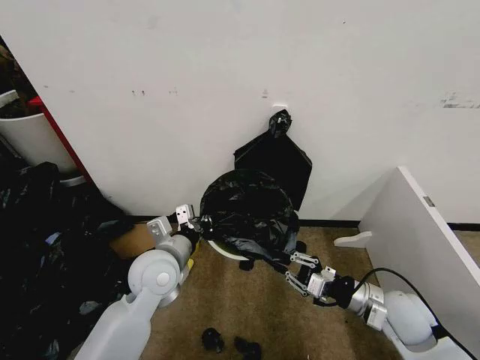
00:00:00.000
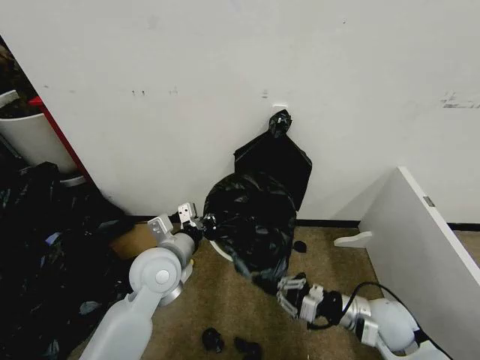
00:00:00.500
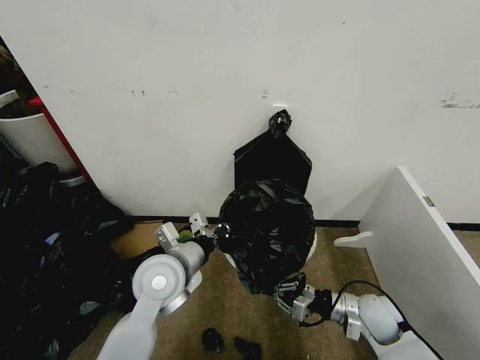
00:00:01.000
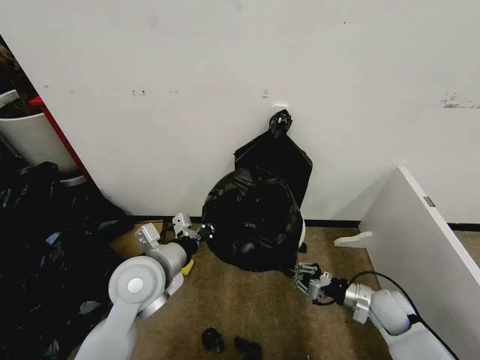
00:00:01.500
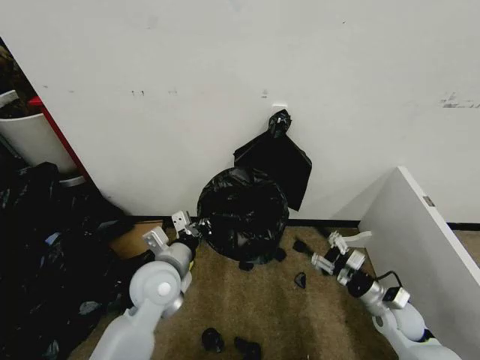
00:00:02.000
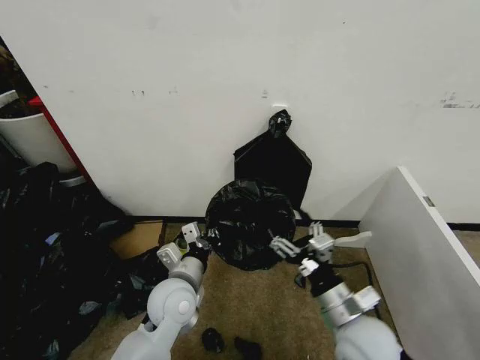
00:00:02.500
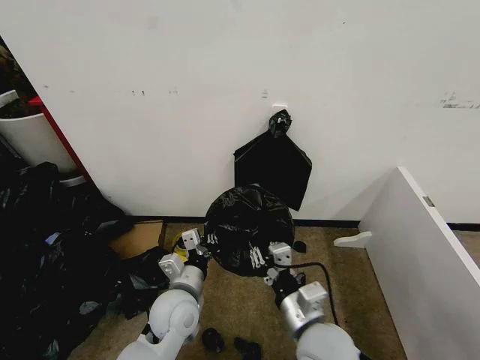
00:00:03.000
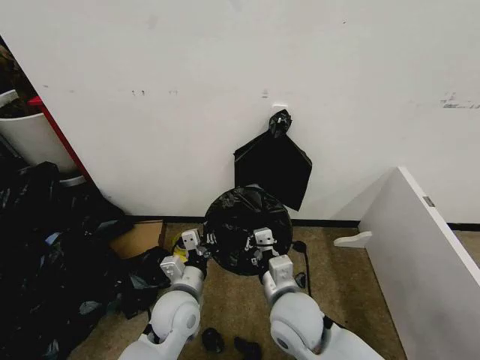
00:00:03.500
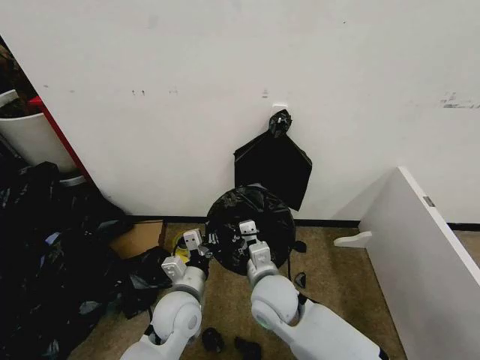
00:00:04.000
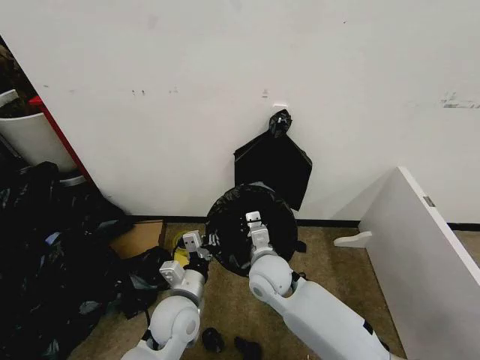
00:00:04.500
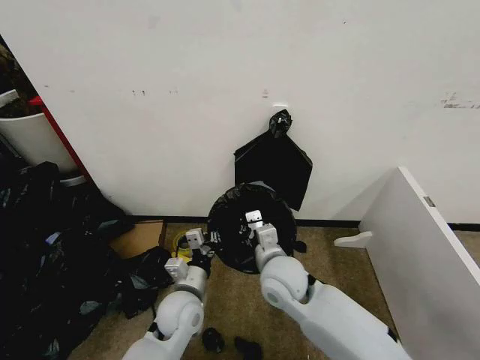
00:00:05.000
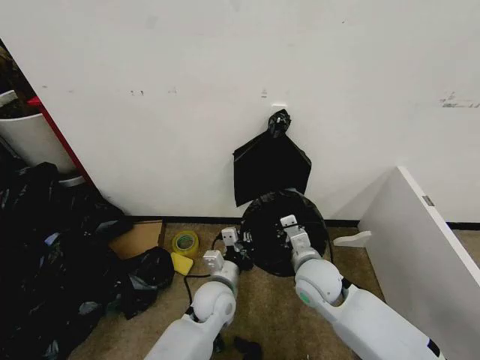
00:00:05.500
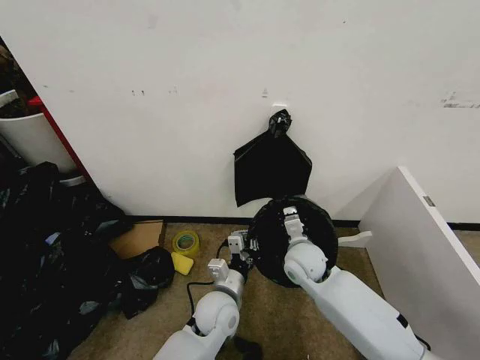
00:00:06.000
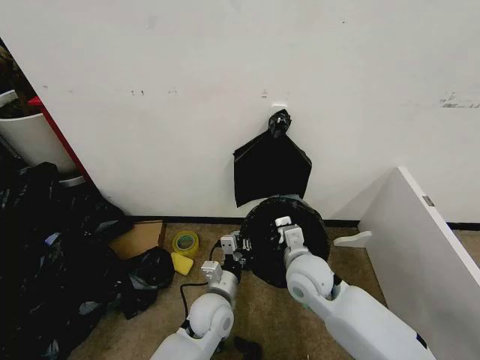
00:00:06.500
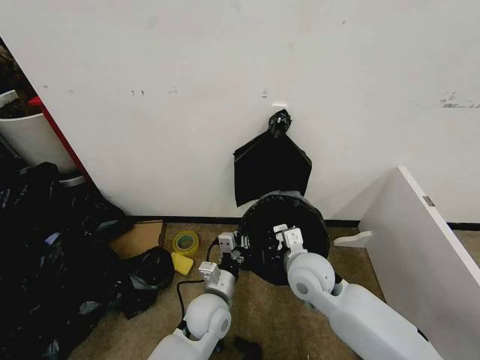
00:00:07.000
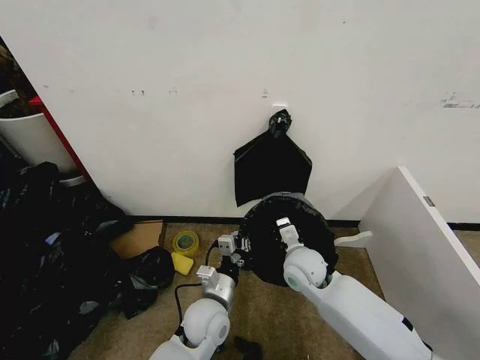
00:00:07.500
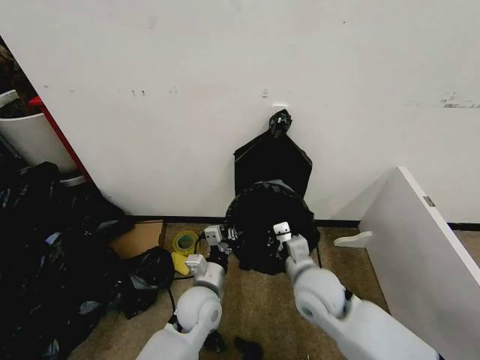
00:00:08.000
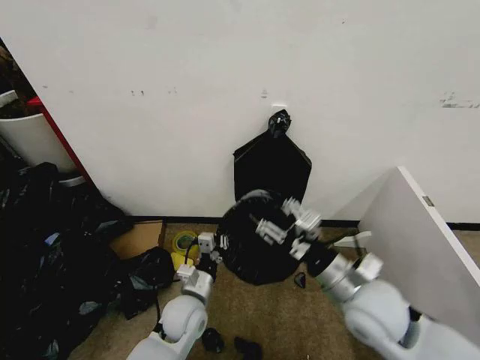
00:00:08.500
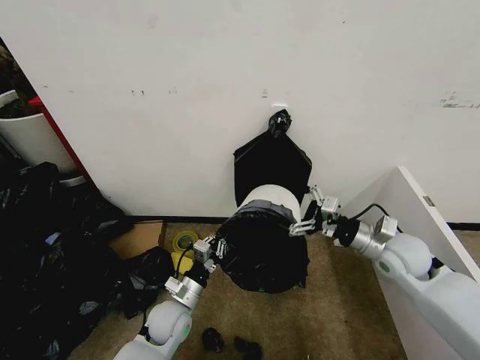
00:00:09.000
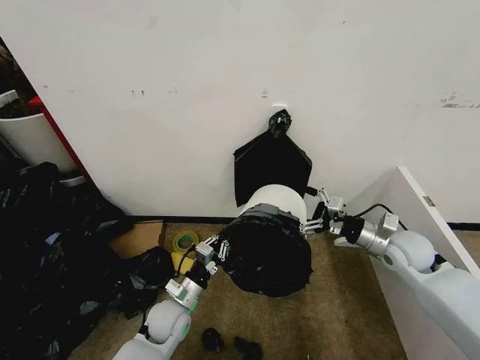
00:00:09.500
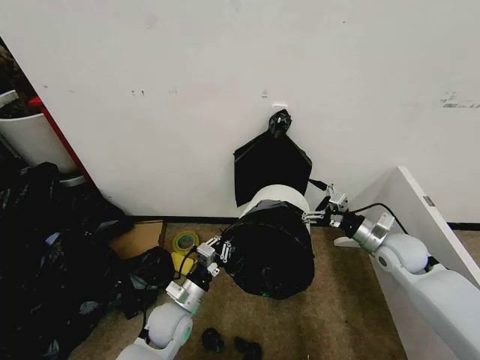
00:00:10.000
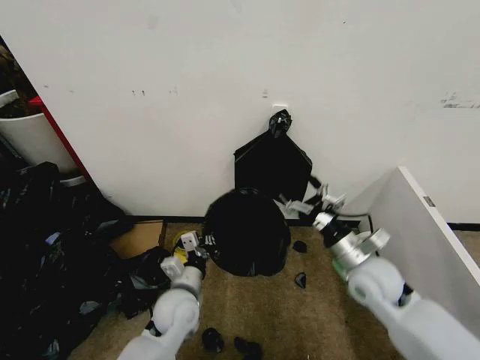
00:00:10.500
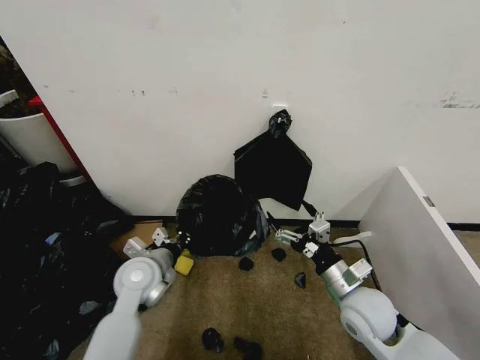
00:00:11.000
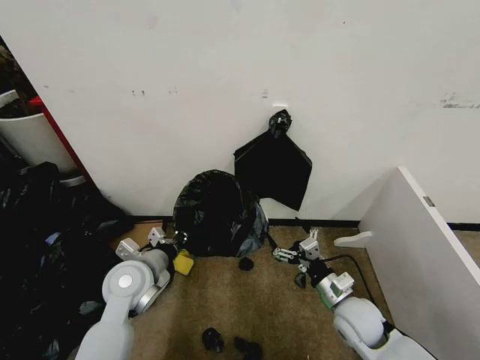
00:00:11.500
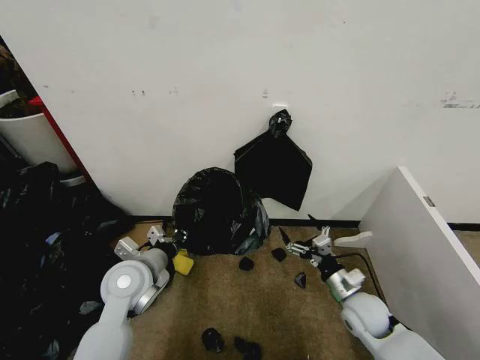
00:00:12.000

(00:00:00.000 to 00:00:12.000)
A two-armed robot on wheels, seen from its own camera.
Task of the whole recording: Place the garbage bag over the trash bin.
00:00:00.000 - 00:00:02.000: The right gripper travels downward by about 10 cm, and opens up.
00:00:02.000 - 00:00:04.000: The left gripper moves downward, approximately 5 cm, while the right gripper goes roughly 30 cm to the left, and closes.
00:00:04.000 - 00:00:06.000: The left gripper goes about 10 cm to the right; the right gripper moves forward and to the right, approximately 15 cm.
00:00:06.000 - 00:00:08.000: The right gripper is displaced backward by some 10 cm.
00:00:08.000 - 00:00:10.000: The left gripper is displaced to the left and downward by about 10 cm. Meanwhile the right gripper travels to the right and forward by about 25 cm, and opens up.
00:00:10.000 - 00:00:12.000: The left gripper goes about 15 cm upward and to the left; the right gripper heads downward, backward and to the left, covering roughly 15 cm.

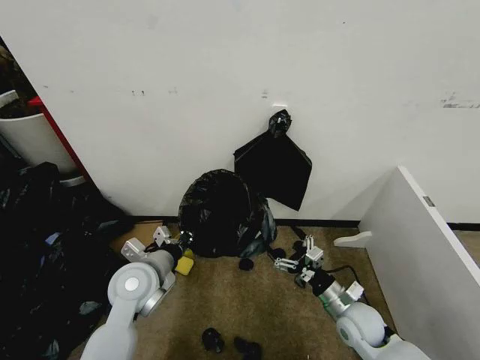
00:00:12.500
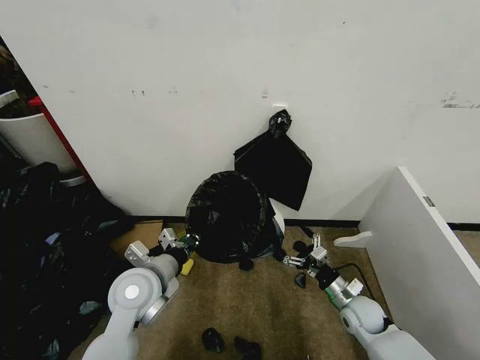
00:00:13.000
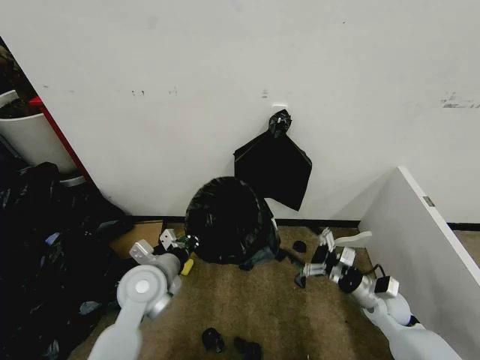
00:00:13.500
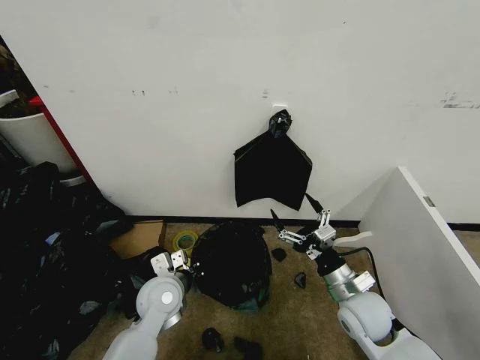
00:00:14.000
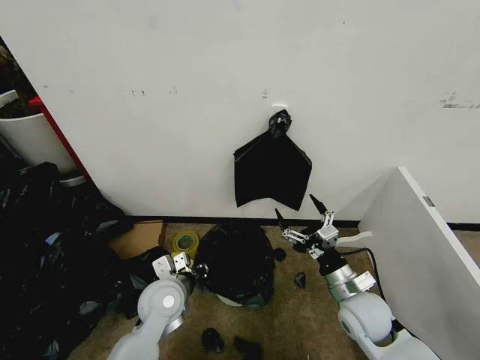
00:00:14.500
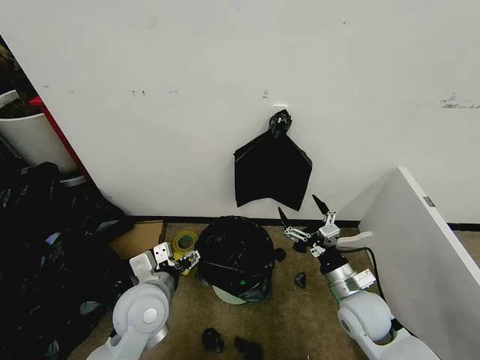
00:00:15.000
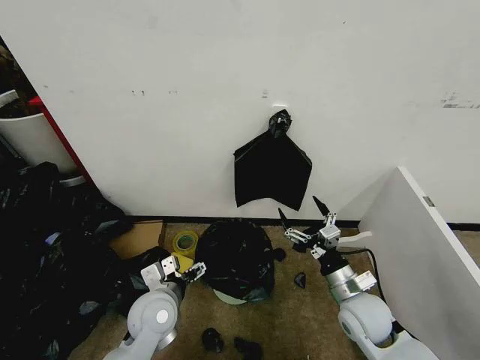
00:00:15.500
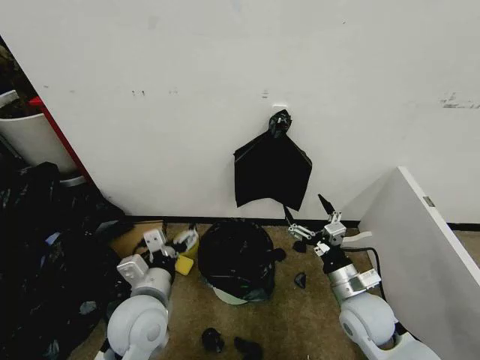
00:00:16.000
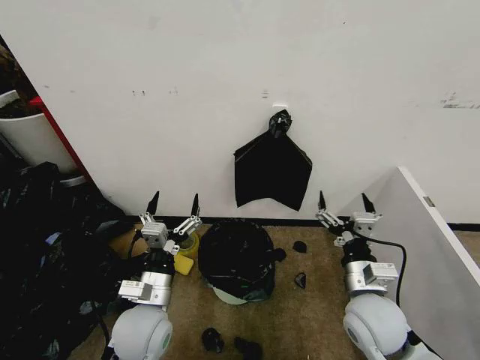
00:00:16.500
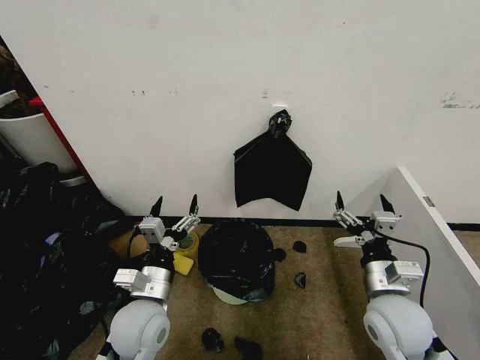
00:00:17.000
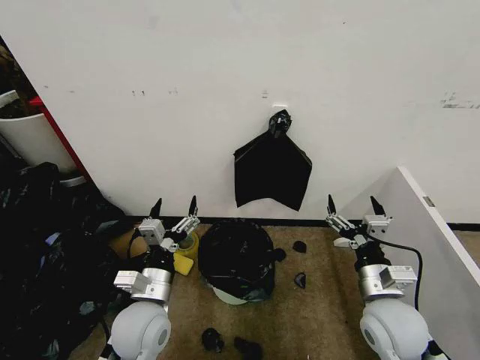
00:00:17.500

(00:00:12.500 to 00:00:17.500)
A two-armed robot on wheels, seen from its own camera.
Task of the whole recording: Place the garbage bag over the trash bin.
00:00:12.500 - 00:00:15.000: The left gripper shifts by approximately 5 cm, and opens its fingers, while the right gripper goes roughly 5 cm upward.
00:00:15.000 - 00:00:17.500: The right gripper shifts some 5 cm upward.

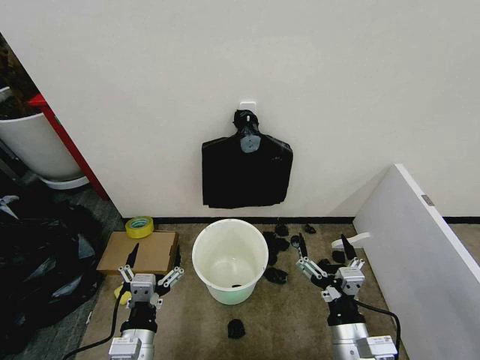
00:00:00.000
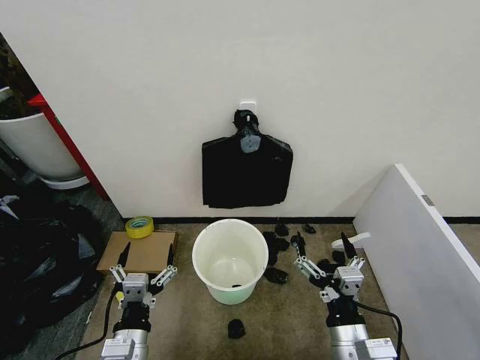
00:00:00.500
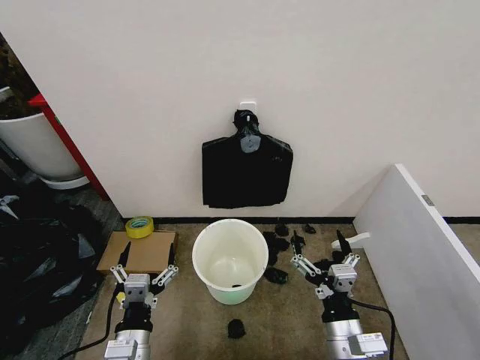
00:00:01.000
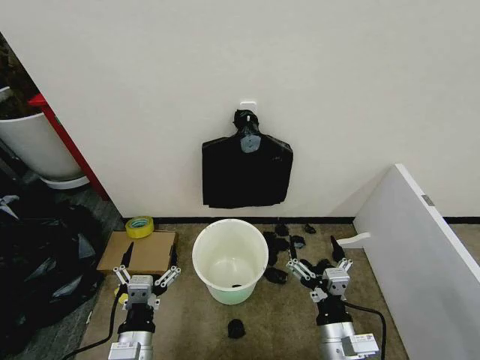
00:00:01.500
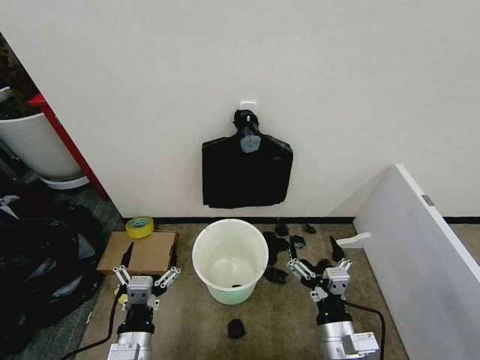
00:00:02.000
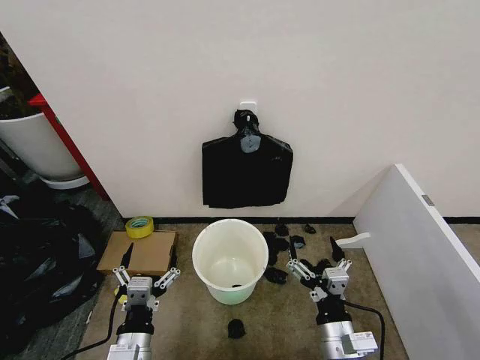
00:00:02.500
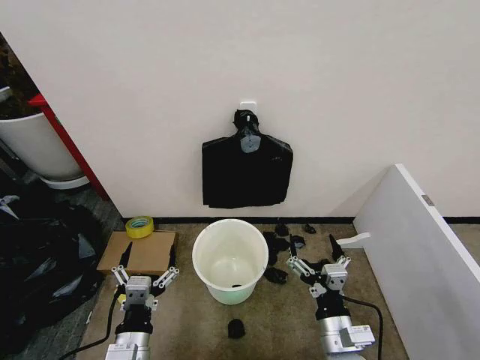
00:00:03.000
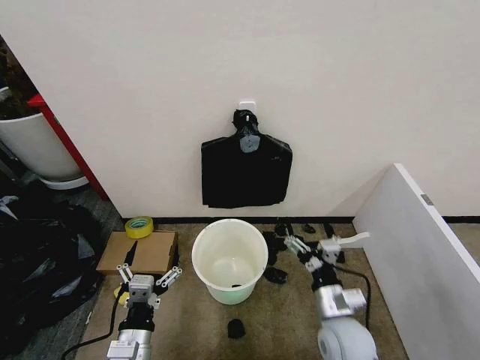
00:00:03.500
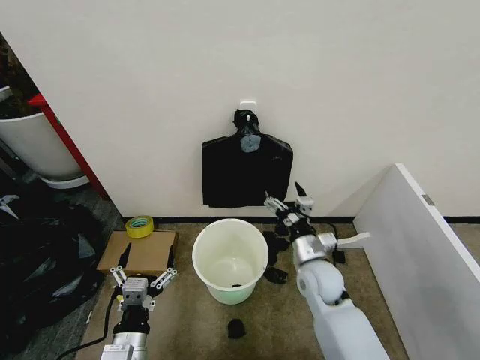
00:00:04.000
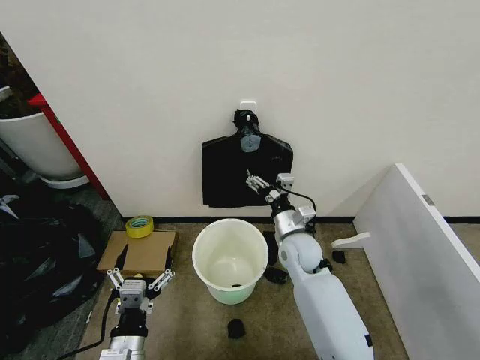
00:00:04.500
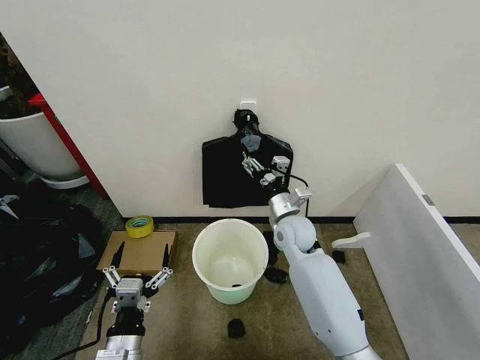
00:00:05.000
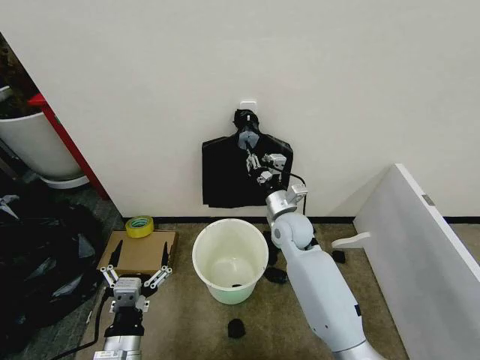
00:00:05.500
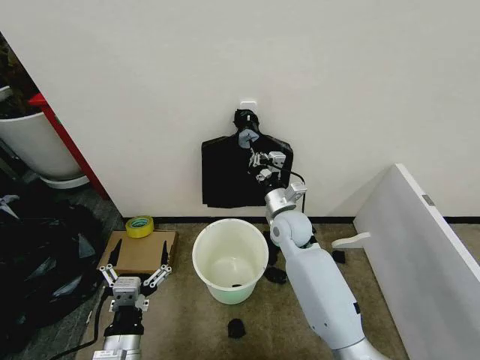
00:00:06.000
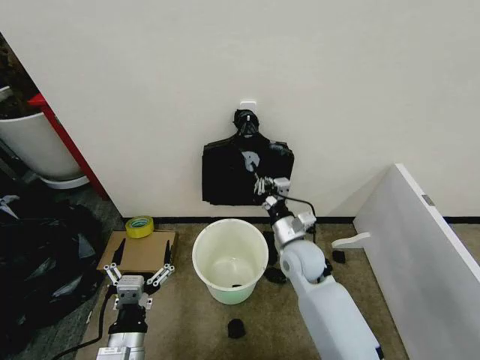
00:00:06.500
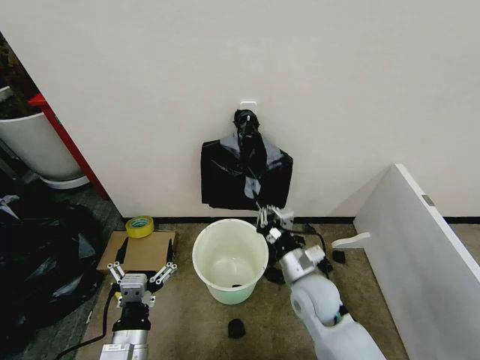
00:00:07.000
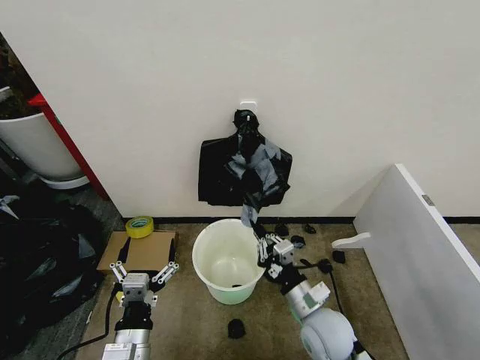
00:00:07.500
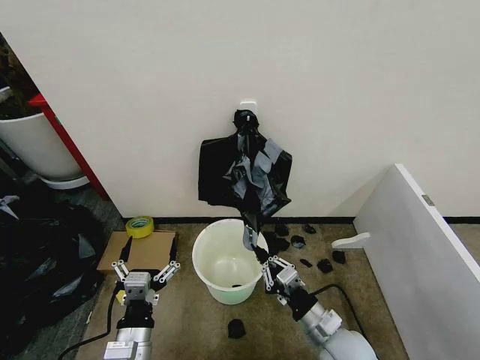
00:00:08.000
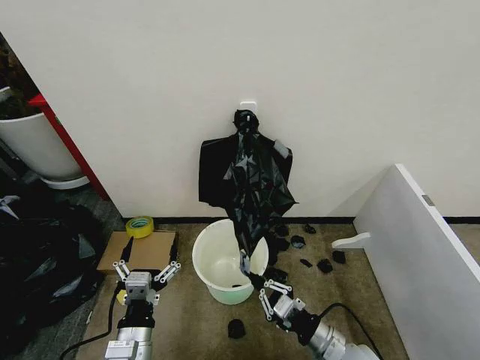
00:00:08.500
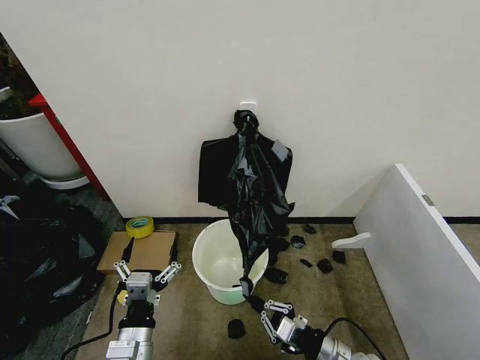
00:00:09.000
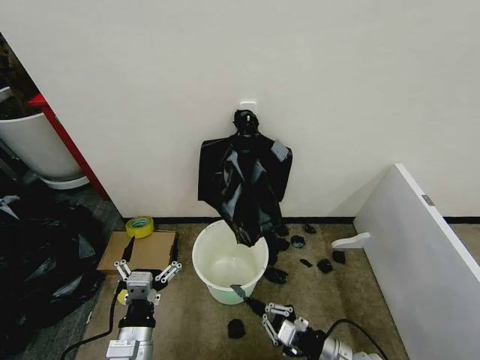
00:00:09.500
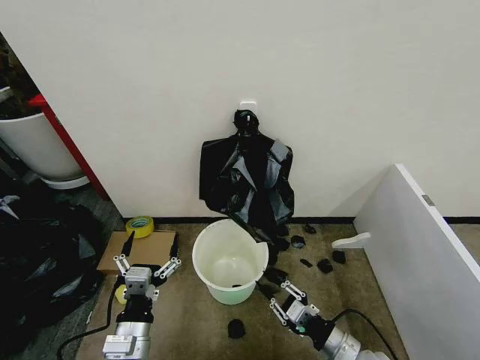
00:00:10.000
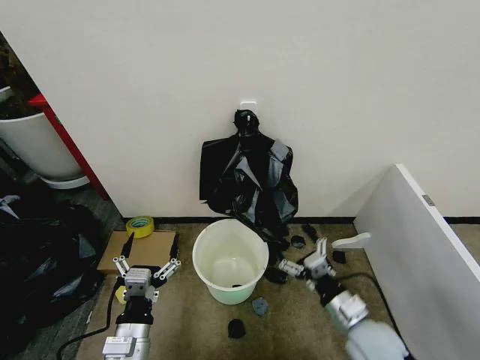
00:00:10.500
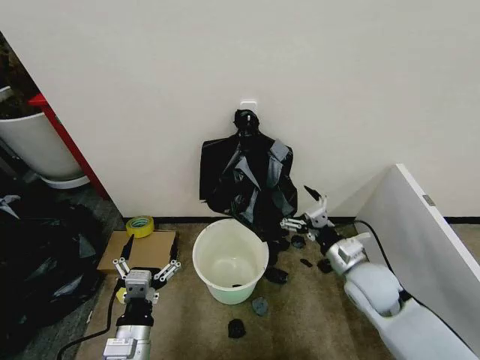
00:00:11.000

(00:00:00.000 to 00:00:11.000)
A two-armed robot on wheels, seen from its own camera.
Task of the whole recording: Place the garbage bag over the trash bin.
00:00:02.000 - 00:00:03.500: The right gripper goes some 5 cm forward.
00:00:03.500 - 00:00:05.500: The right gripper is displaced forward by approximately 20 cm, and closes its fingers.
00:00:05.500 - 00:00:07.500: The right gripper goes roughly 20 cm backward.
00:00:07.500 - 00:00:09.000: The right gripper goes some 10 cm to the right, backward and downward.
00:00:09.000 - 00:00:11.000: The right gripper is displaced forward and upward by about 20 cm, and opens its fingers.
